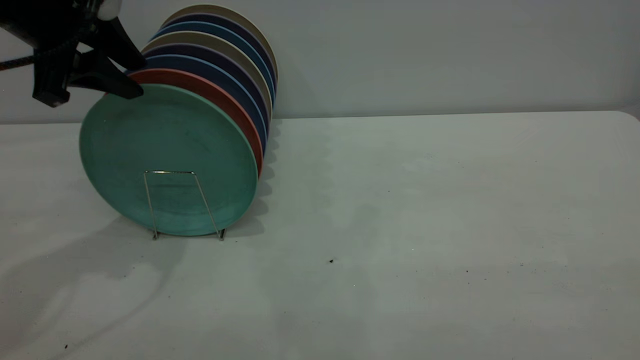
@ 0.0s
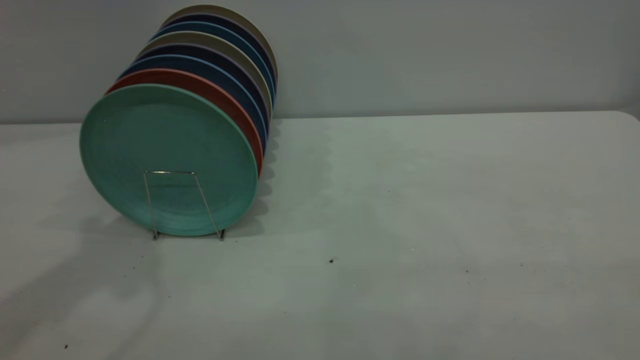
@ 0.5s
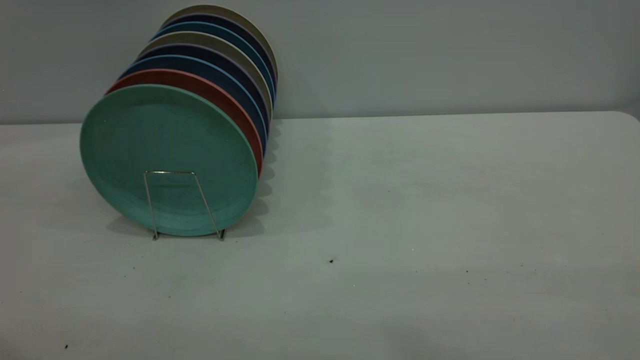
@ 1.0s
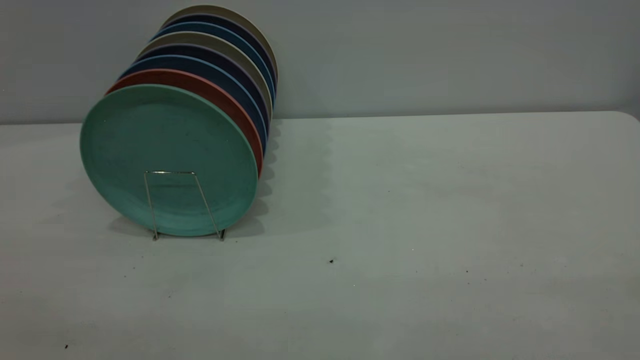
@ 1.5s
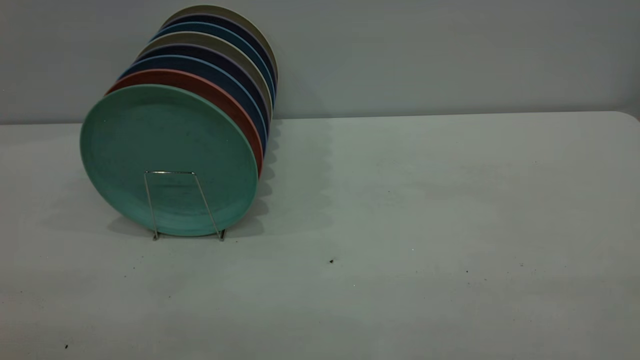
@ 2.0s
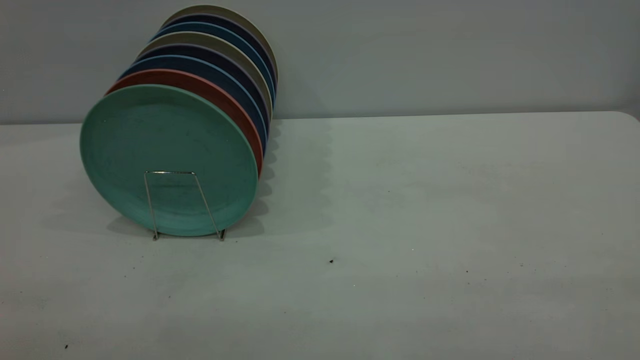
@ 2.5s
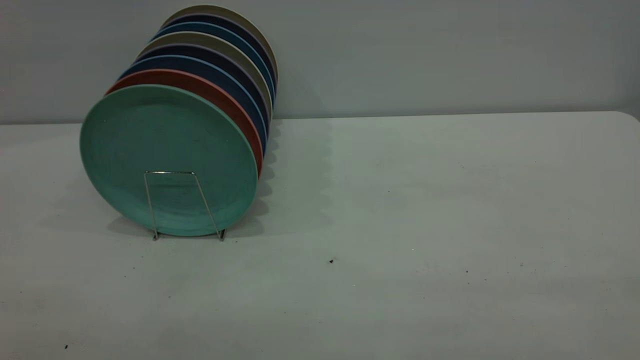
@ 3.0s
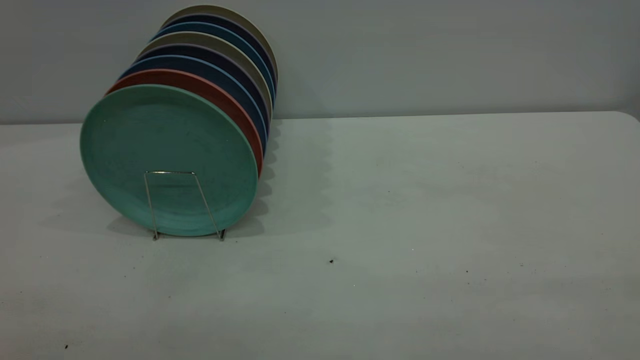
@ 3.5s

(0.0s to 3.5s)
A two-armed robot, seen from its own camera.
Task of the whole recording: the right gripper grasp the green plate, the right gripper pass the green plate to the left gripper, and the left gripper place the green plate on the plate rack.
0.0s - 2.0s: The left gripper is displaced backward by about 40 cm.
